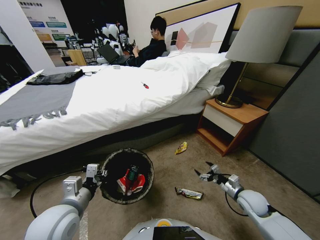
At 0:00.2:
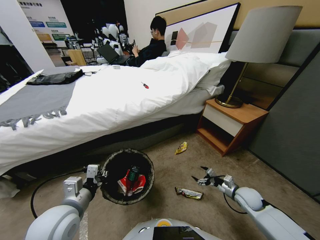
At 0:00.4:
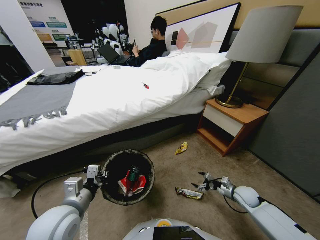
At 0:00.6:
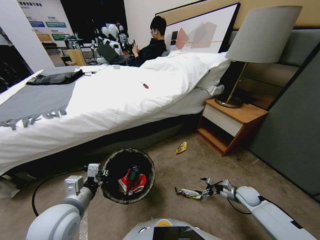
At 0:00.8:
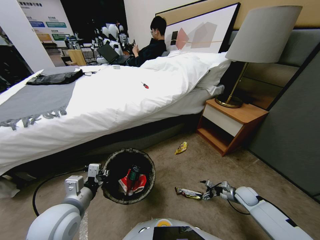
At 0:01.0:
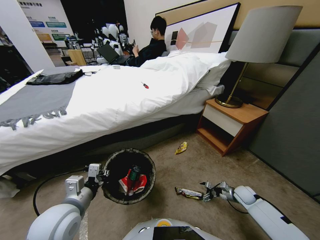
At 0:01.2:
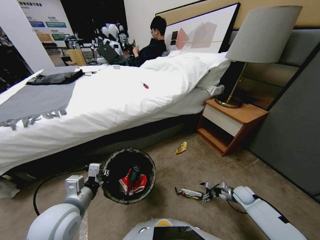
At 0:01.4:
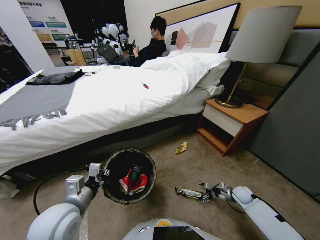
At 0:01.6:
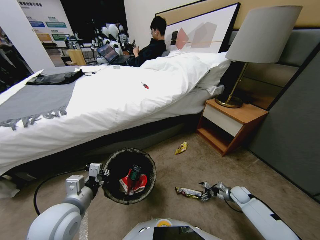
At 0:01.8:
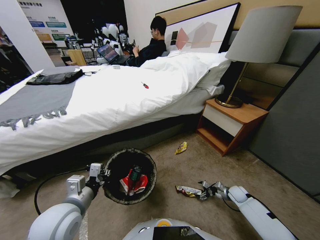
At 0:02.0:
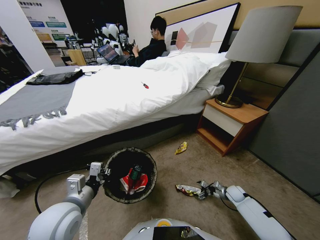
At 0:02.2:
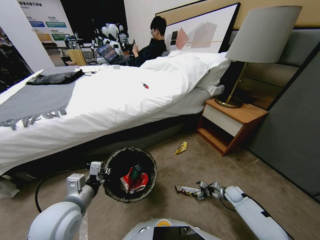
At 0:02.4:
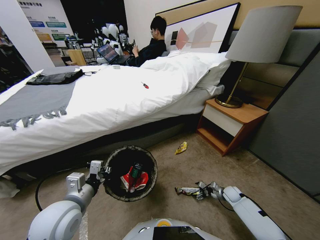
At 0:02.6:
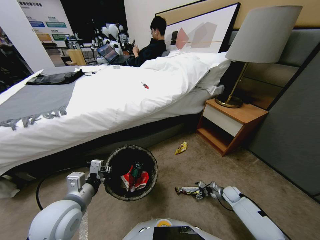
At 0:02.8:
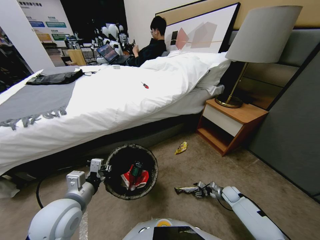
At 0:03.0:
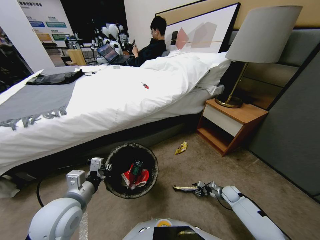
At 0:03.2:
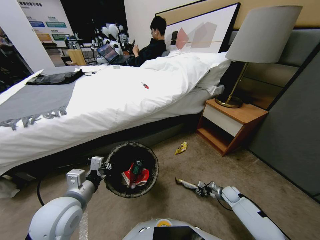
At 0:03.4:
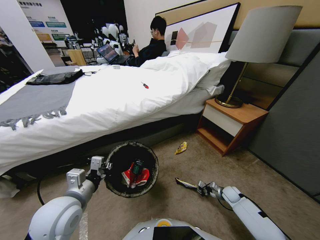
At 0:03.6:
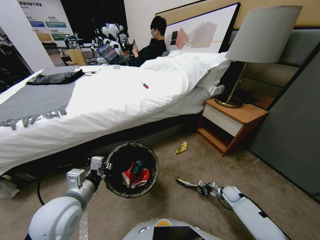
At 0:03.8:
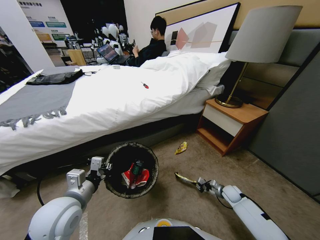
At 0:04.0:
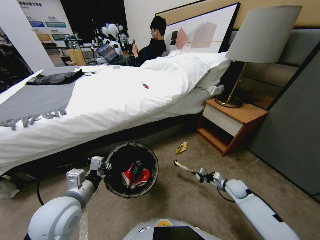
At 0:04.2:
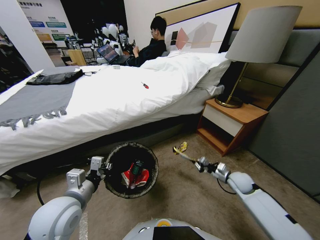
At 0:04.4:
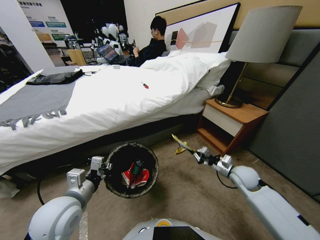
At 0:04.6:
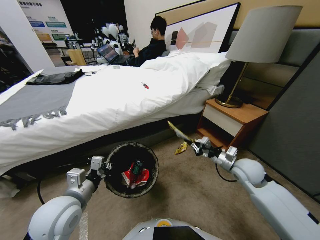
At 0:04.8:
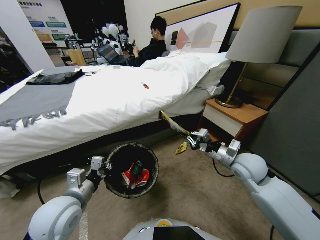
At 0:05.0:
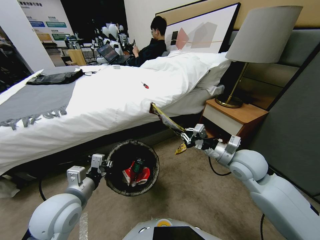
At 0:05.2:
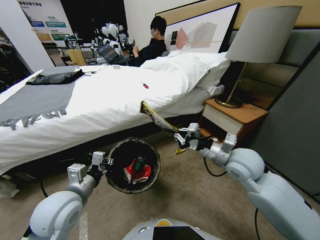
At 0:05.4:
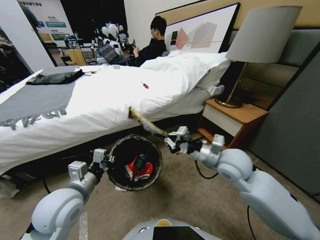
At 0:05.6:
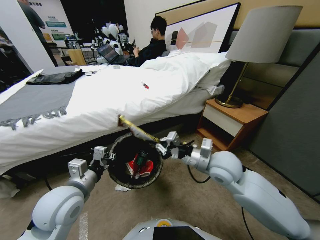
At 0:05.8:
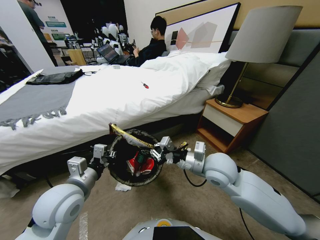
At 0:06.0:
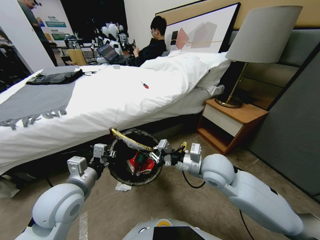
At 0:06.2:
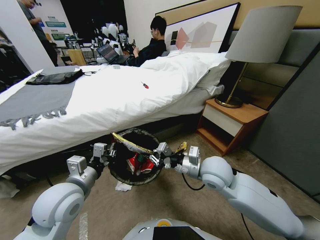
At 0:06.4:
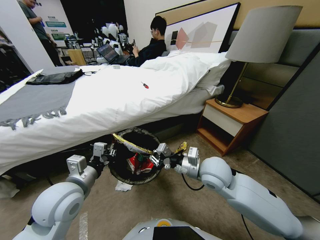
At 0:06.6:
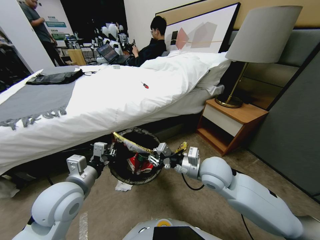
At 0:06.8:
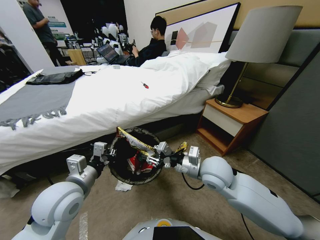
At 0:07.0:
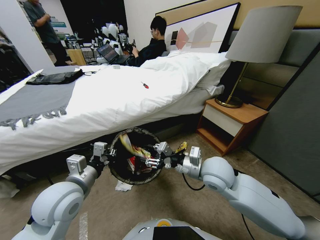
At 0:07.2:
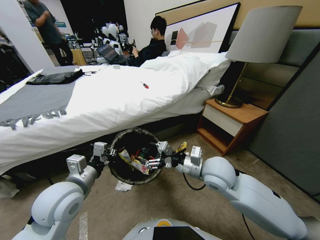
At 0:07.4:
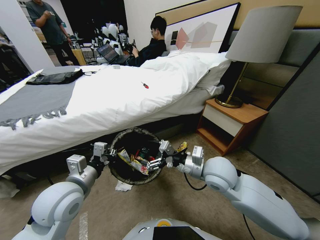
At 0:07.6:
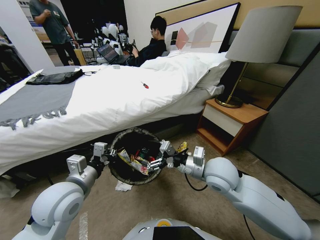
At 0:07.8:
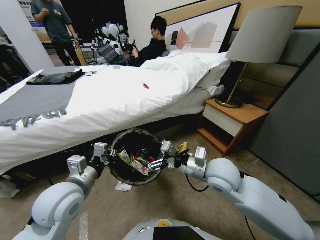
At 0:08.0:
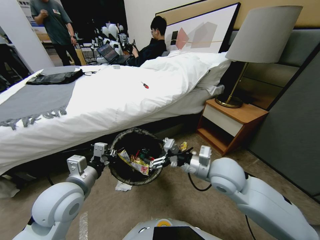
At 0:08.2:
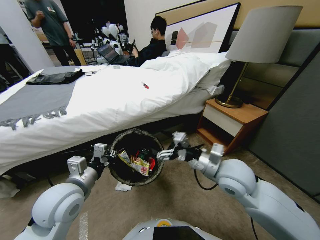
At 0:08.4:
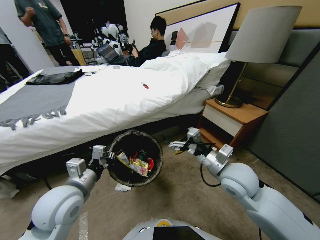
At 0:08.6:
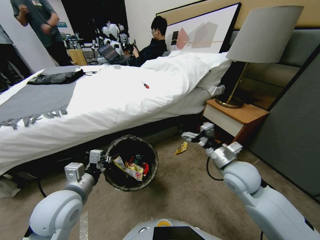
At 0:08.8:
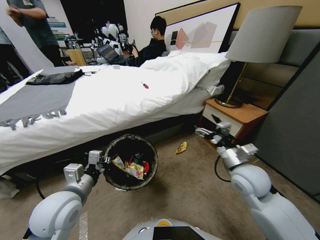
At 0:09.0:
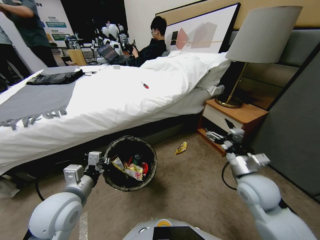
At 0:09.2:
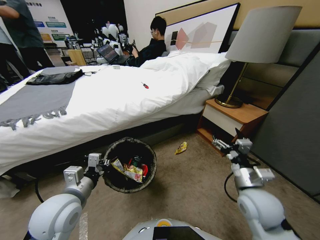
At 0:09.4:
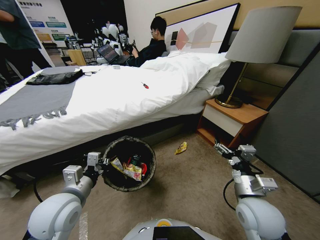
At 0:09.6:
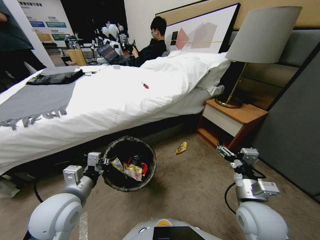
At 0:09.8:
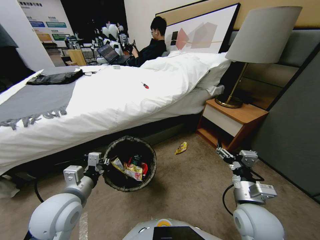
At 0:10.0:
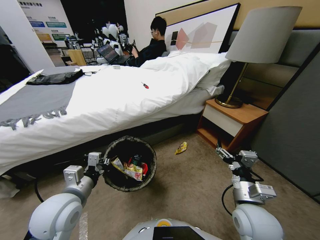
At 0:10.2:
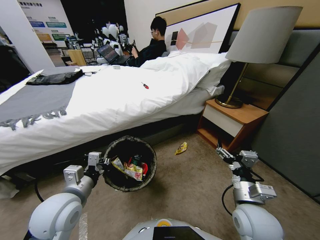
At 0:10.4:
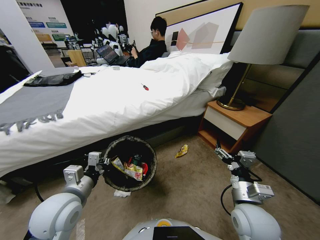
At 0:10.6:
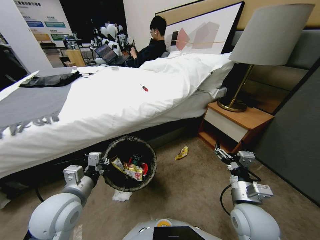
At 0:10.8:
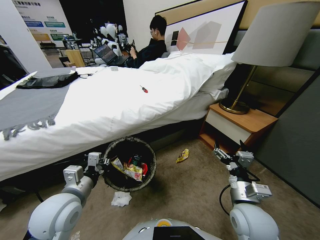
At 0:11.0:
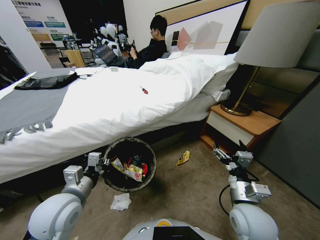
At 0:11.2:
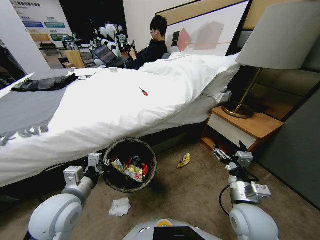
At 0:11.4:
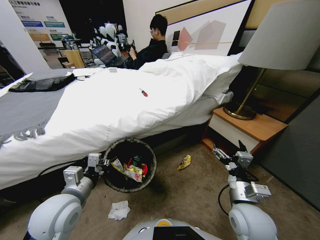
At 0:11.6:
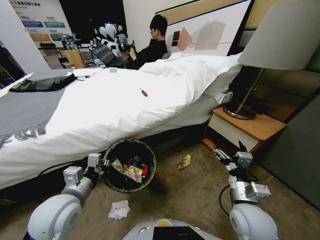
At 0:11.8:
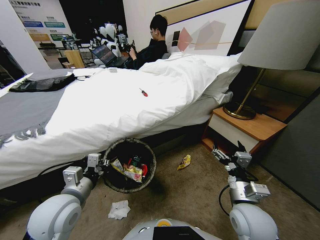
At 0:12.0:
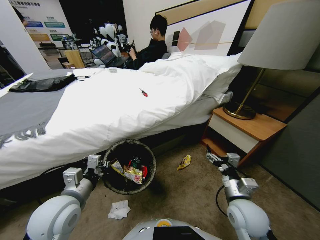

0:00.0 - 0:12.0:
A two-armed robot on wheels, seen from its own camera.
Task of the whole recording: Pick up the trash bin, then pick up the garbage from the floor and place it into the trash bin.
0:00.0 - 0:01.6: The right gripper moves downward and to the right, about 15 cm.
0:01.6 - 0:03.0: The right gripper closes up.
0:03.0 - 0:04.4: The right gripper moves upward, approximately 25 cm, and closes its fingers.
0:04.4 - 0:06.0: The right gripper travels to the left and upward by roughly 20 cm.
0:06.0 - 0:07.6: The right gripper opens its fingers.
0:07.6 - 0:09.0: The right gripper goes some 15 cm to the right, backward and downward.
0:09.0 - 0:10.4: The right gripper shifts by approximately 5 cm.
0:10.4 - 0:12.0: The right gripper ends up approximately 5 cm from where it was.

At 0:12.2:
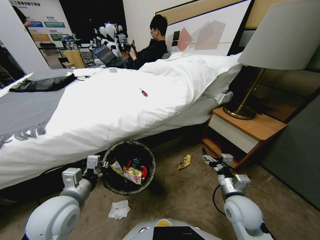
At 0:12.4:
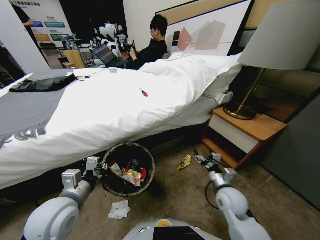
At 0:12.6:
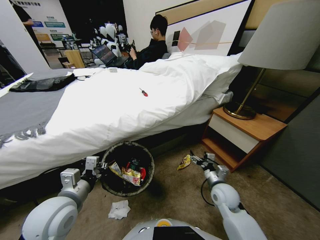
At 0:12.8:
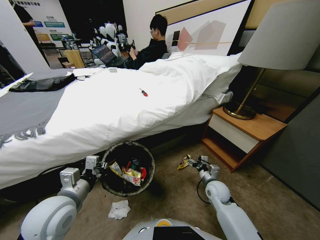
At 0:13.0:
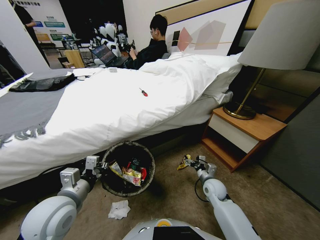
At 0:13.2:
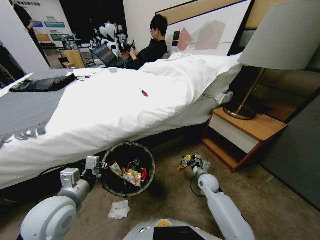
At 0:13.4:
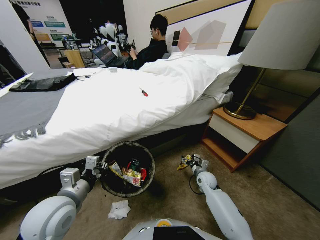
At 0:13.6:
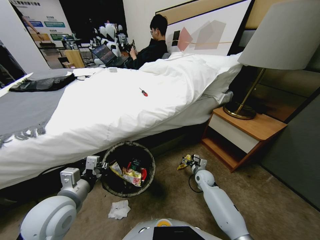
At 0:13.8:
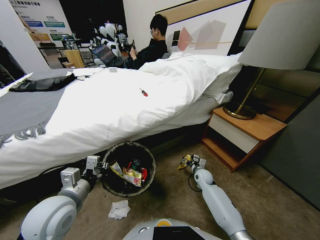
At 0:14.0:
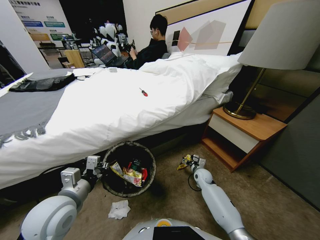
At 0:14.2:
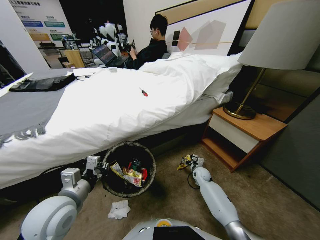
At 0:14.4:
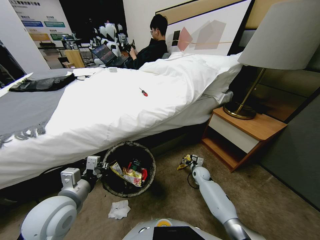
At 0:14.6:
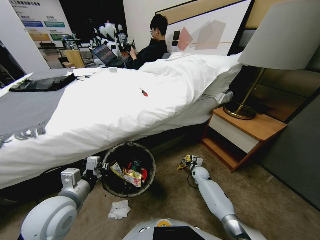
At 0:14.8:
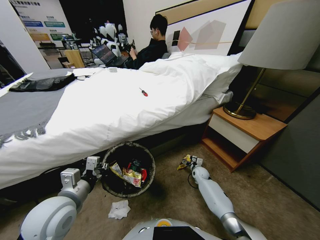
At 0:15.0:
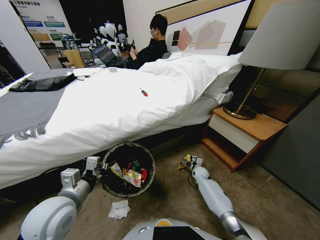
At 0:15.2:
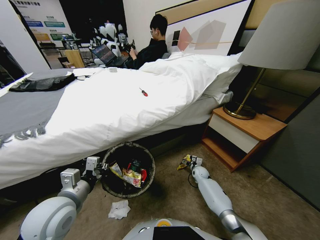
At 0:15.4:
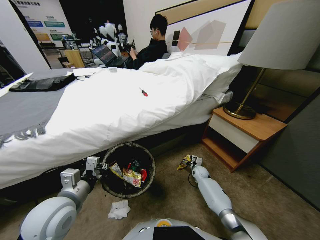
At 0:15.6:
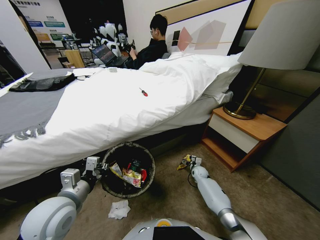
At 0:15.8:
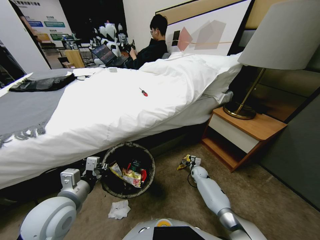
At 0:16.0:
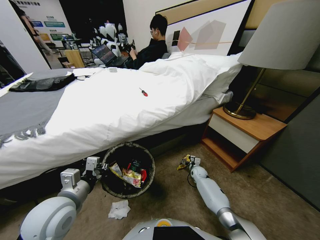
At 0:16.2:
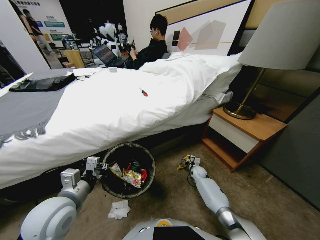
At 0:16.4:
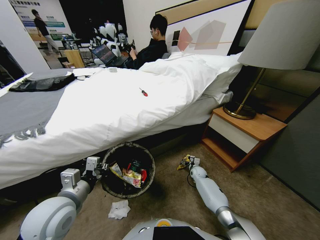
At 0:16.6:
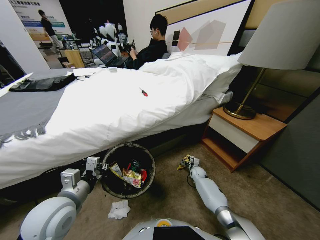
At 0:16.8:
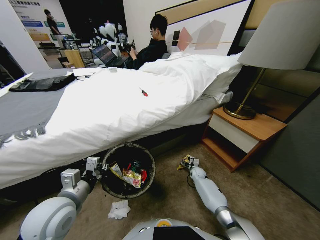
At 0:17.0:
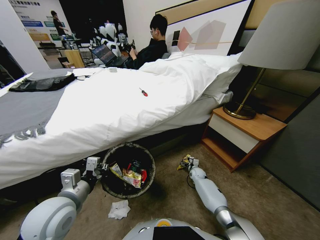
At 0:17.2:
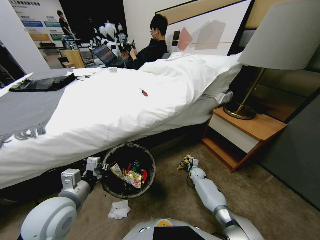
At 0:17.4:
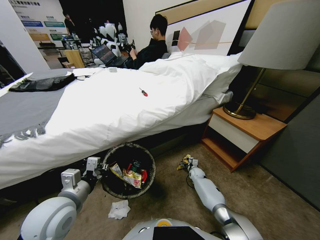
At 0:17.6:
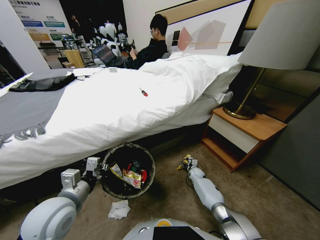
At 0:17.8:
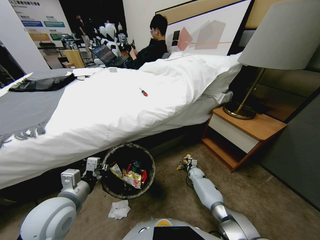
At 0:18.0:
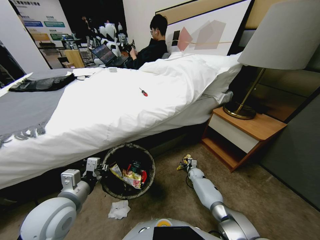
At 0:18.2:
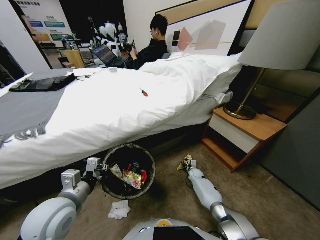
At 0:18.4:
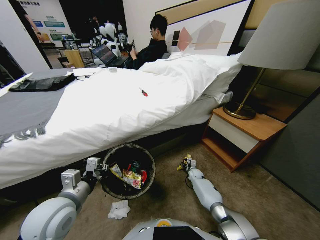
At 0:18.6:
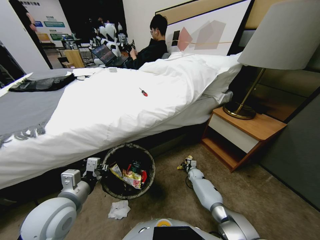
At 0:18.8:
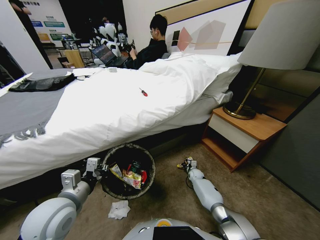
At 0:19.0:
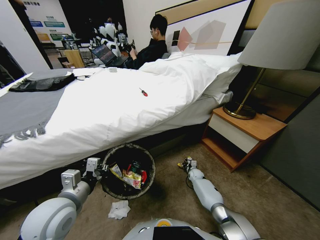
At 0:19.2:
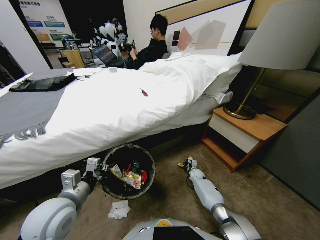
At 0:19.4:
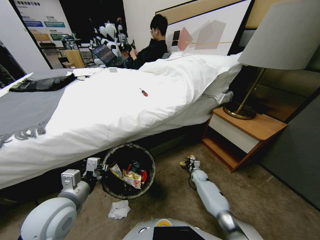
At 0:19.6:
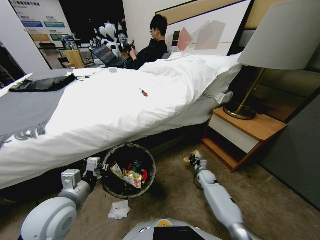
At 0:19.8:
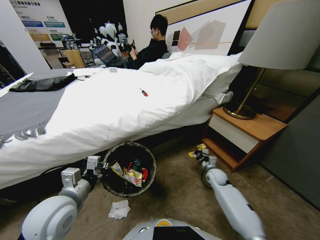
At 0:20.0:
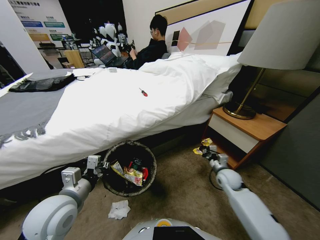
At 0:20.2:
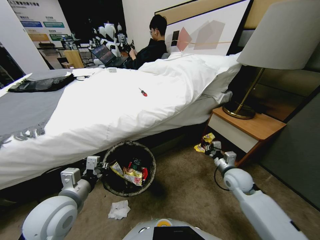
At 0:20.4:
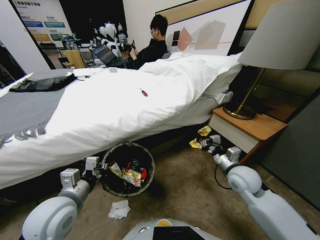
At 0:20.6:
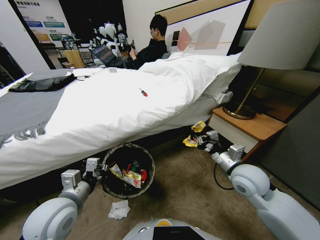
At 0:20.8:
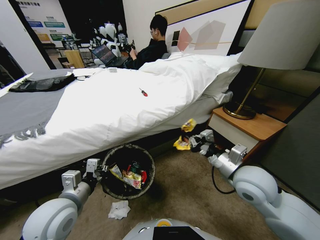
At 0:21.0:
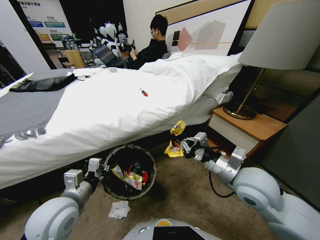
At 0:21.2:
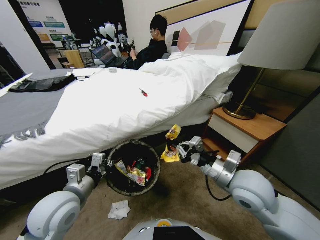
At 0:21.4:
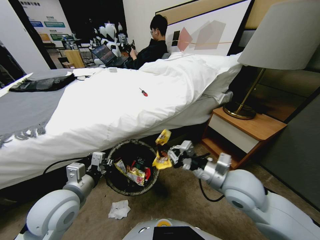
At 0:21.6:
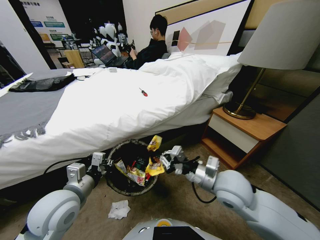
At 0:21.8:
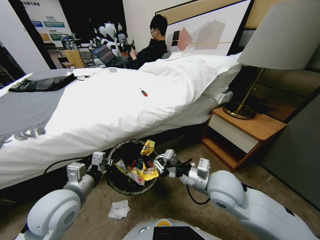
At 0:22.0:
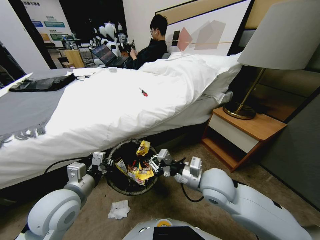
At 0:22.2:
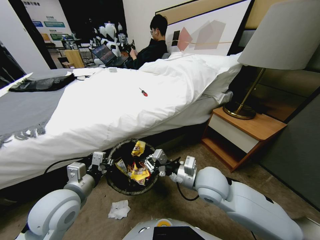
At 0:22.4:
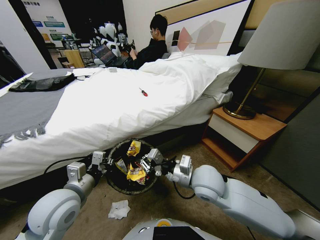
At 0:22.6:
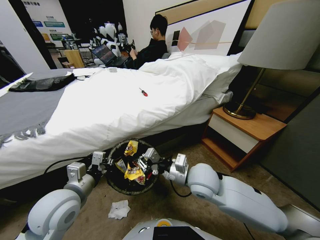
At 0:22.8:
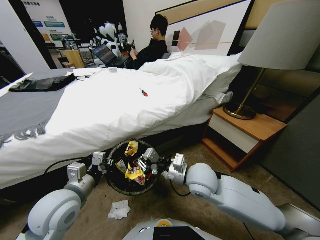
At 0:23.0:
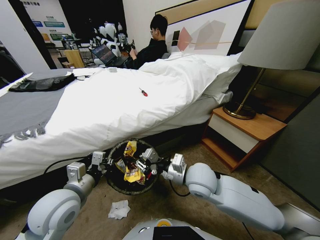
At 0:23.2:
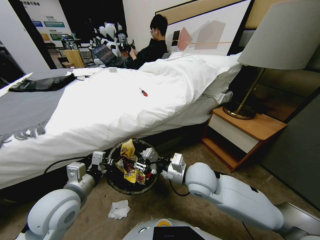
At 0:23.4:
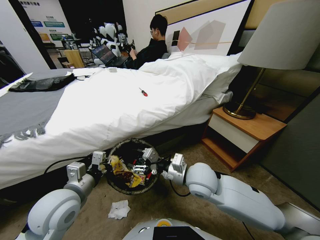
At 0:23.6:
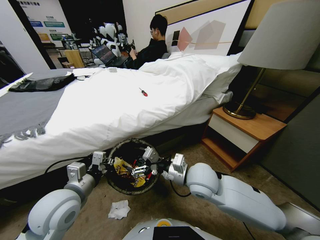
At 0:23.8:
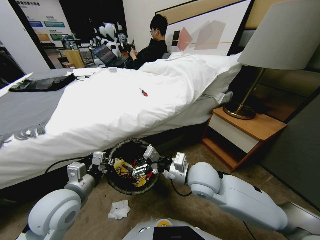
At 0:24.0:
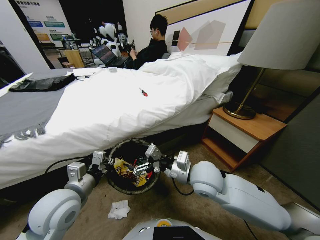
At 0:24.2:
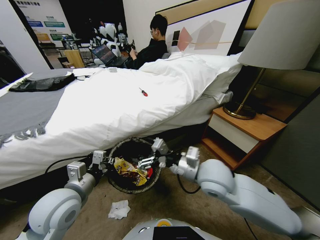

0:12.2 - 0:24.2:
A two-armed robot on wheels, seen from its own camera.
Task of the whole recording: Pick up the trash bin, then pick up the garbage from the floor and place it into the trash bin.
0:12.2 - 0:13.8: The right gripper travels forward and downward by about 25 cm.
0:13.8 - 0:15.2: The right gripper is displaced downward by some 5 cm.
0:15.2 - 0:18.2: The grippers stay close to where they were, moving slightly.
0:18.2 - 0:19.8: The right gripper shifts roughly 20 cm upward, backward and to the right, and closes up.
0:19.8 - 0:21.2: The right gripper is displaced upward, backward and to the left by approximately 30 cm.
0:21.2 - 0:22.6: The right gripper is displaced to the left by some 10 cm.
0:22.6 - 0:24.2: The right gripper moves roughly 5 cm, and opens.
